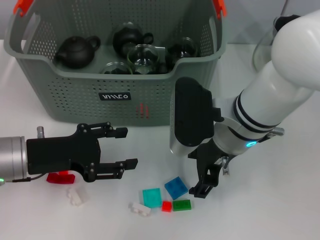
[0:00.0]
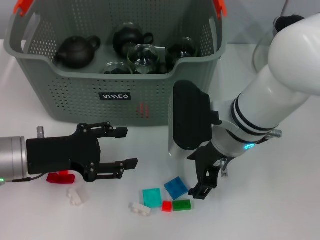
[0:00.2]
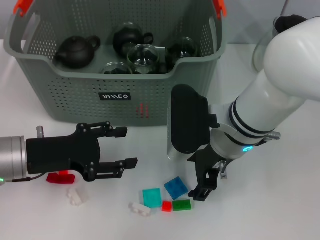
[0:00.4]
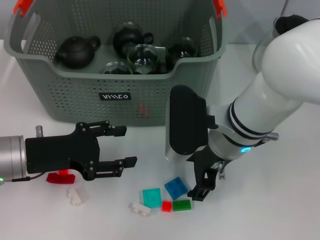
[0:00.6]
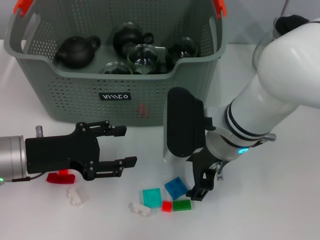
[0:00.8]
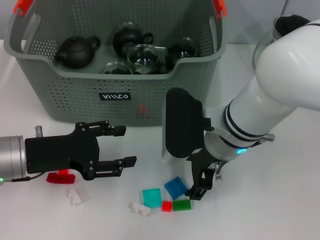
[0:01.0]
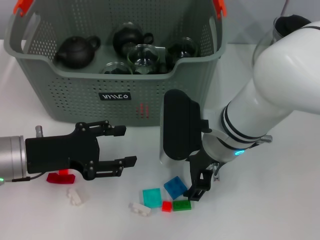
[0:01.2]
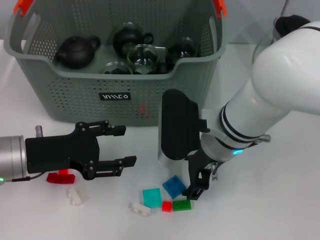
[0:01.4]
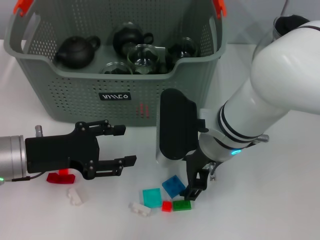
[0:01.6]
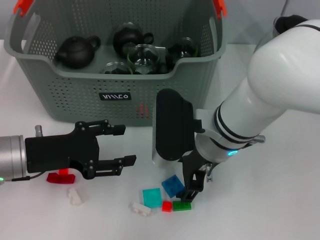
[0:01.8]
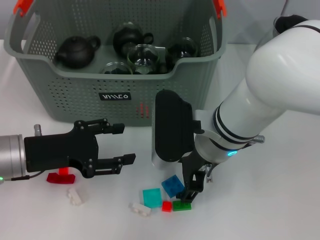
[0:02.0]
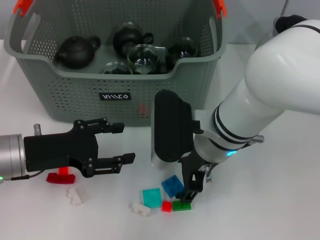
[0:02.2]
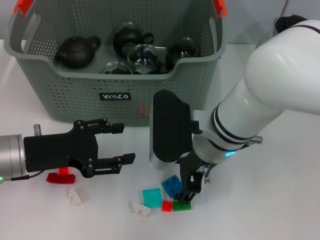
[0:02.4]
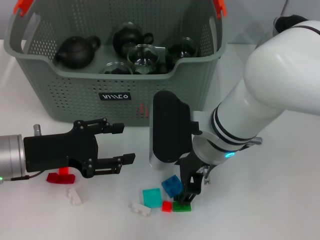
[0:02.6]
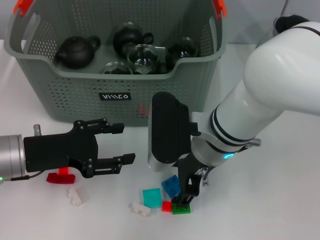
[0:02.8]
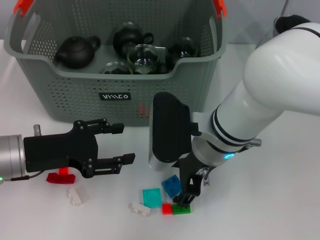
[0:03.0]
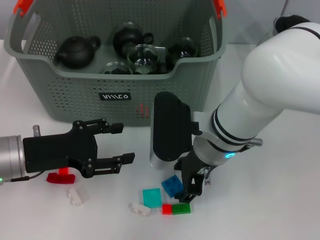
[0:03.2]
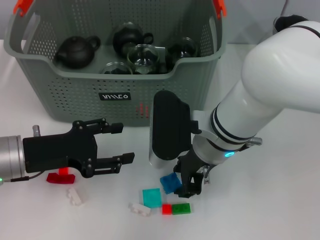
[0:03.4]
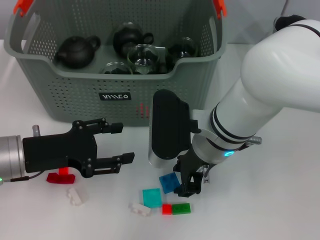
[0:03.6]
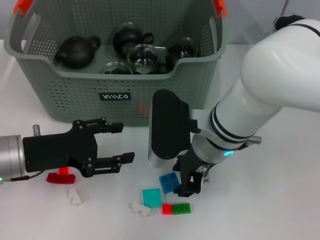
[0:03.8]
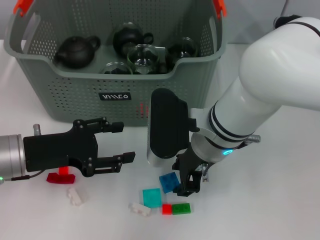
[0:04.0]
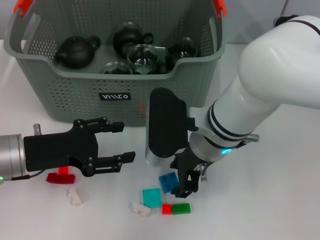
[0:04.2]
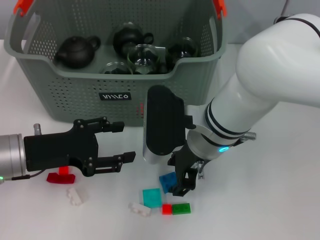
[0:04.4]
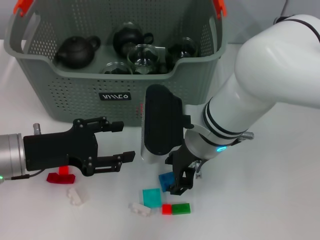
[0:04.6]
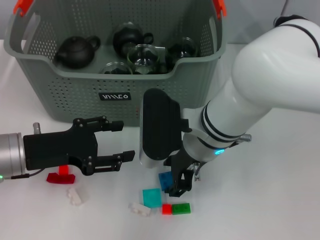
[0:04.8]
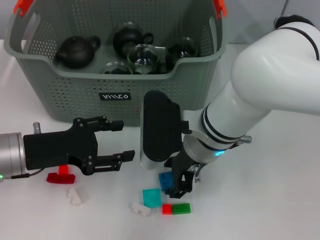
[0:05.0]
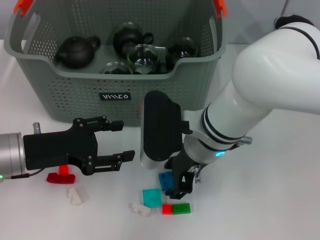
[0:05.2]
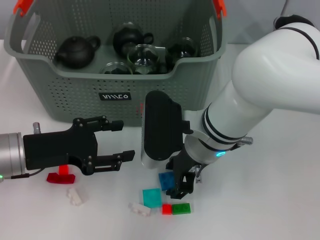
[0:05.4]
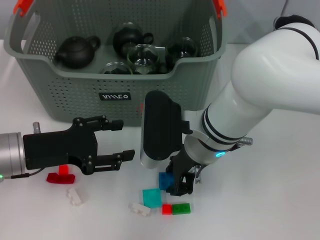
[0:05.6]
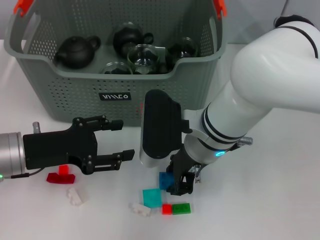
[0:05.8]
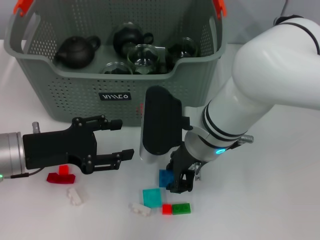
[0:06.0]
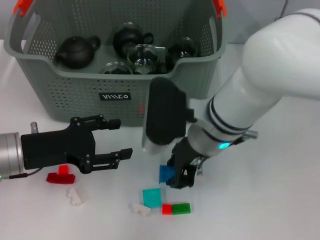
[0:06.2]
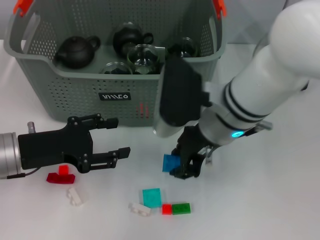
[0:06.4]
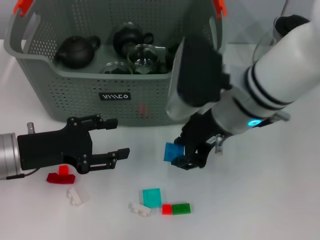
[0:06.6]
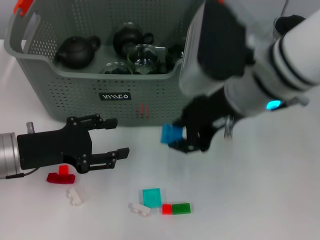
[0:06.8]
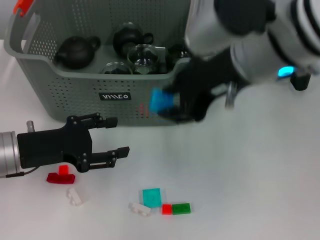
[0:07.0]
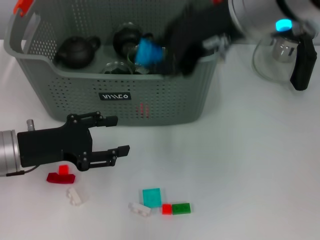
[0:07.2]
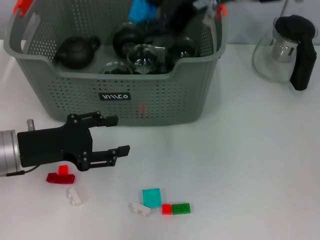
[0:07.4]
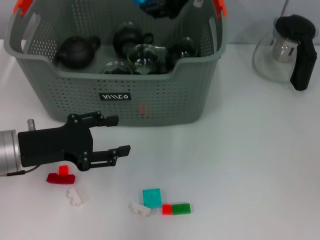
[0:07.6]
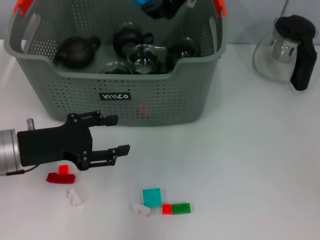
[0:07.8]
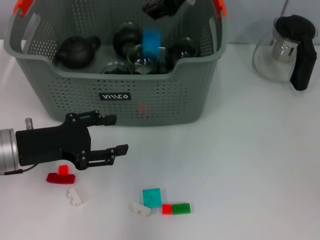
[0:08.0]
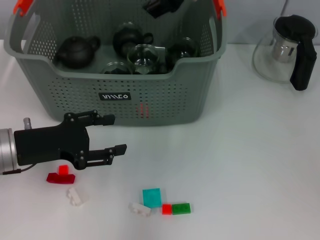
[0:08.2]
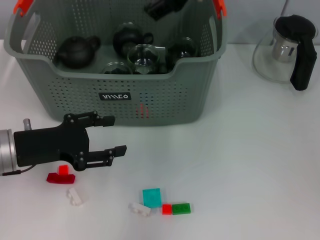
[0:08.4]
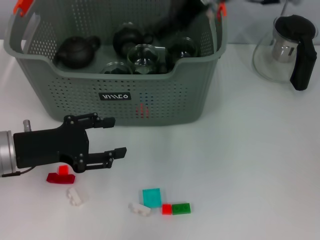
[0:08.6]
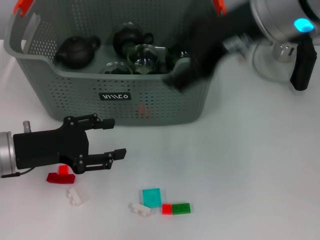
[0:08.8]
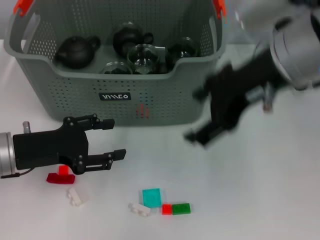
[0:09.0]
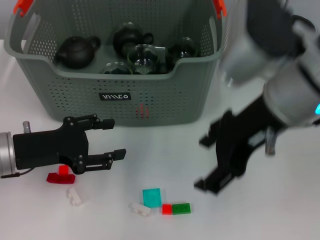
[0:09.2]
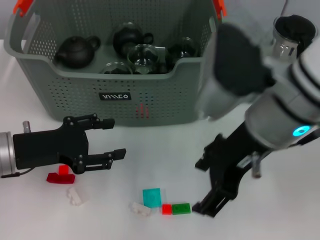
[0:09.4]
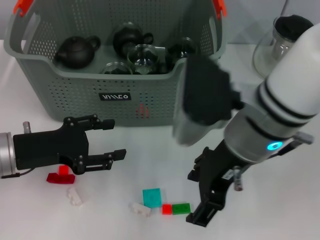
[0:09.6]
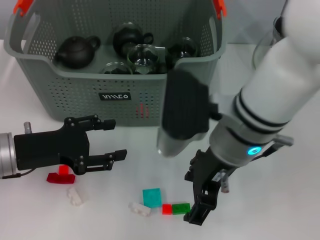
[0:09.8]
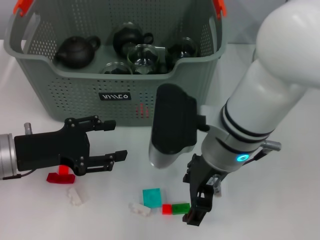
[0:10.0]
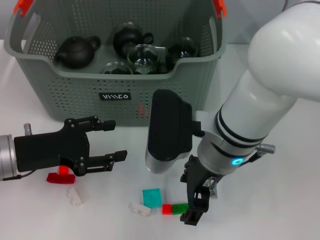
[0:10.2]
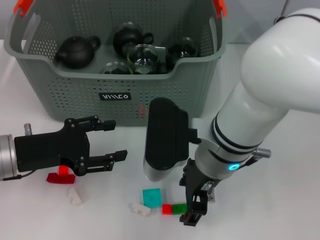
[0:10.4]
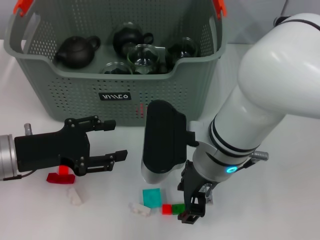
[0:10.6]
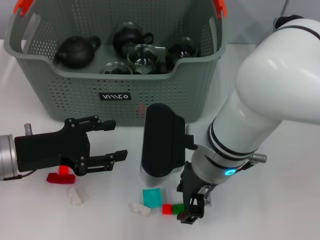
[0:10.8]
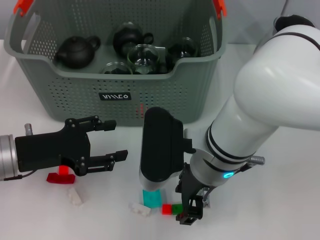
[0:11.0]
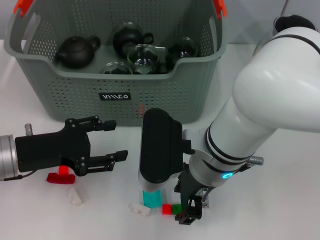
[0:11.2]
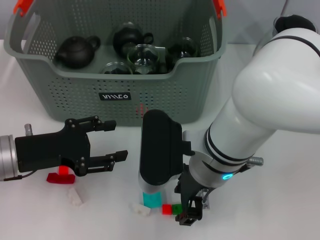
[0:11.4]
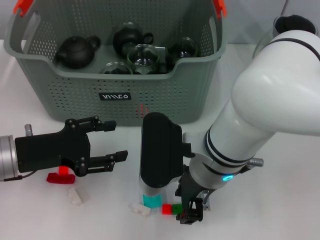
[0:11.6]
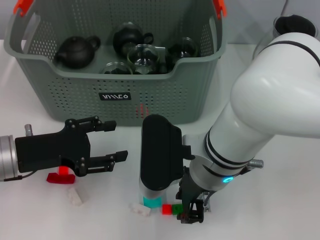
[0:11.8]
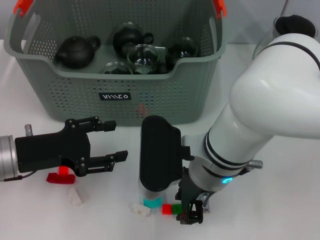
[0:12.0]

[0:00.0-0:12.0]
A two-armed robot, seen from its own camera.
Task of the whole recording: pick up the teacup on the table and place it into the storage bin, pick up the block on the table and place it into the storage bin.
Step, 0:00.0 to 0:05.8: Grasp the dark blue block with right gripper.
Step, 0:06.0 to 0:08.0: Place the dark blue block in the storage box with right gripper.
0:00.0 to 0:01.6: The grippers move only a little.
0:01.6 to 0:03.0: The two grippers keep their place.
0:03.0 to 0:06.0: Neither gripper changes place.
0:06.0 to 0:07.6: The right gripper heads upward, covering some 20 cm.
0:07.6 to 0:09.0: The right gripper goes about 10 cm backward and to the right, and opens.
0:09.0 to 0:10.4: The right gripper goes about 15 cm downward and to the left.
0:10.4 to 0:12.0: The right gripper closes its fingers.

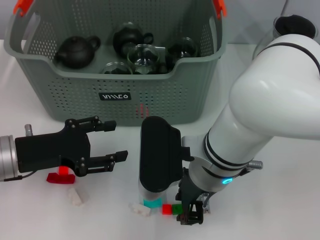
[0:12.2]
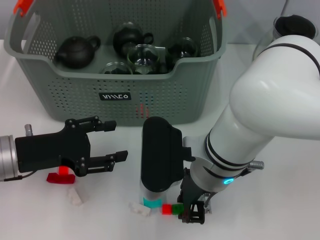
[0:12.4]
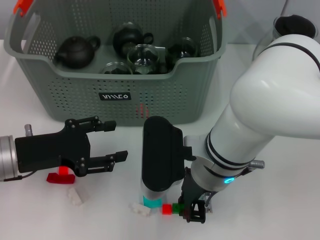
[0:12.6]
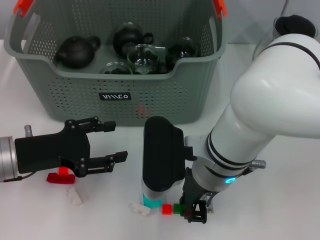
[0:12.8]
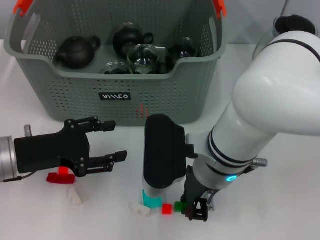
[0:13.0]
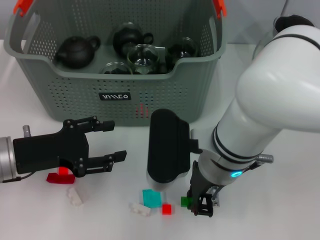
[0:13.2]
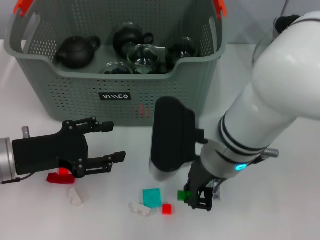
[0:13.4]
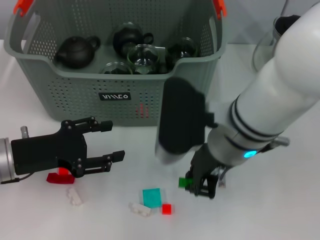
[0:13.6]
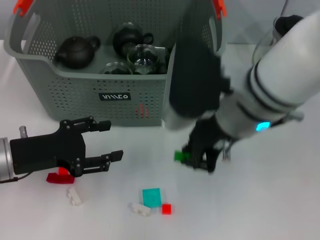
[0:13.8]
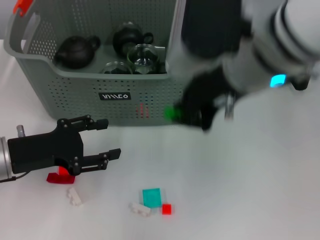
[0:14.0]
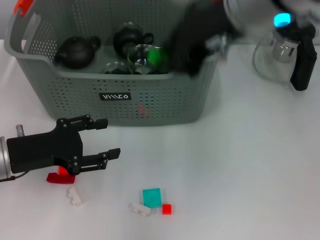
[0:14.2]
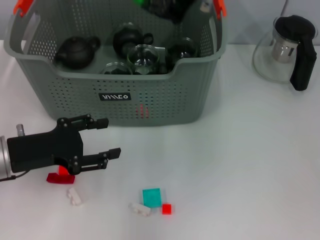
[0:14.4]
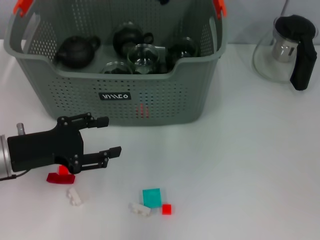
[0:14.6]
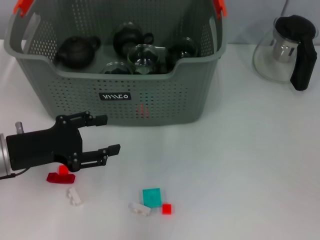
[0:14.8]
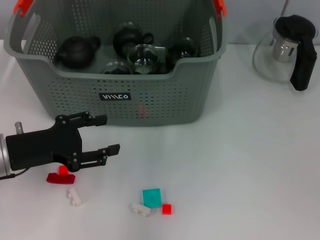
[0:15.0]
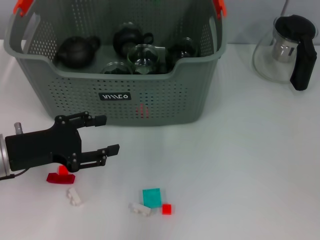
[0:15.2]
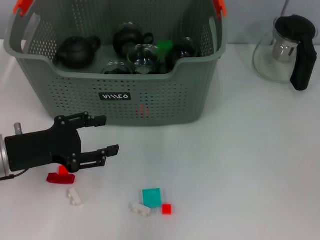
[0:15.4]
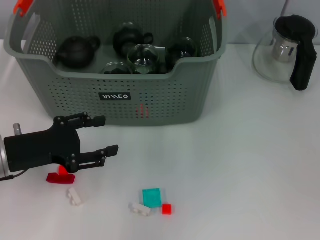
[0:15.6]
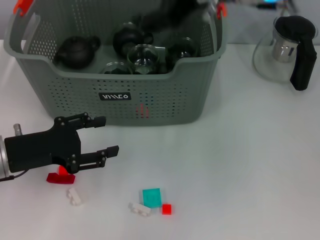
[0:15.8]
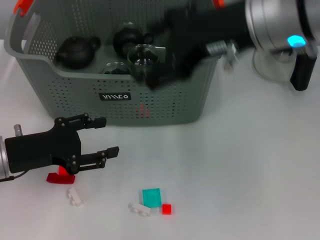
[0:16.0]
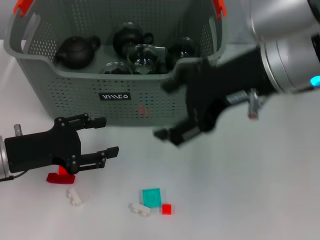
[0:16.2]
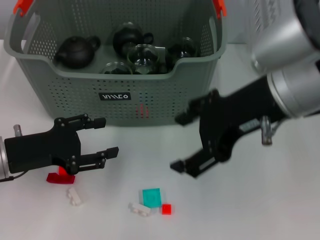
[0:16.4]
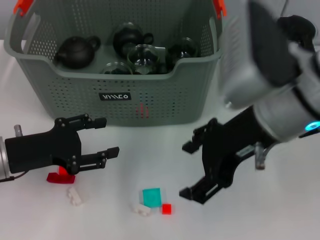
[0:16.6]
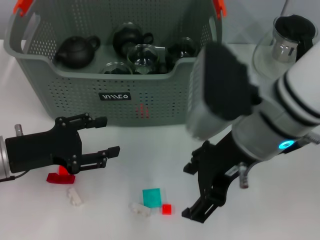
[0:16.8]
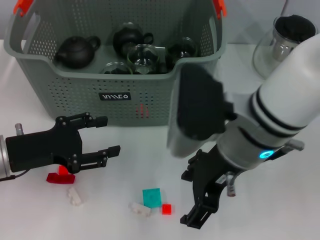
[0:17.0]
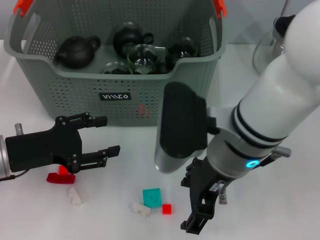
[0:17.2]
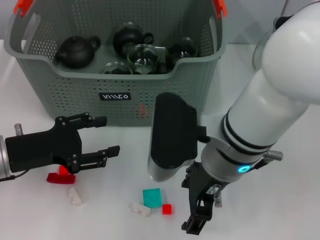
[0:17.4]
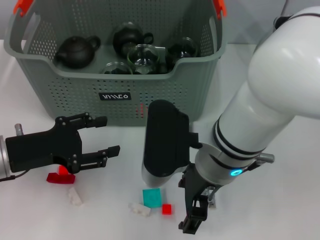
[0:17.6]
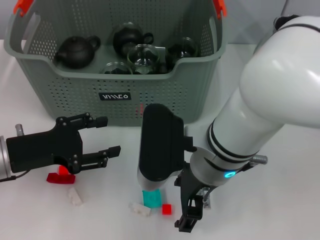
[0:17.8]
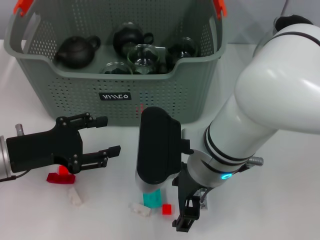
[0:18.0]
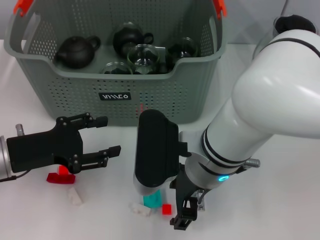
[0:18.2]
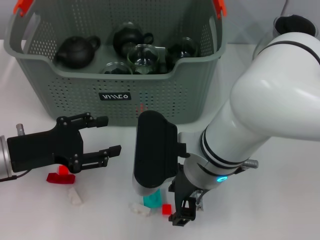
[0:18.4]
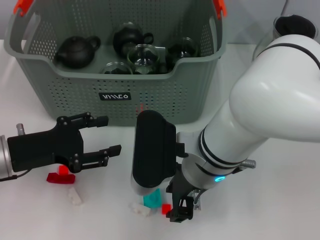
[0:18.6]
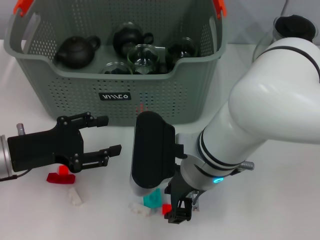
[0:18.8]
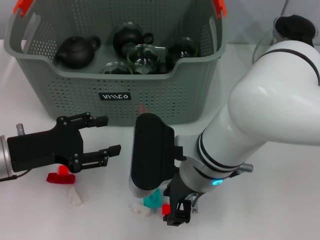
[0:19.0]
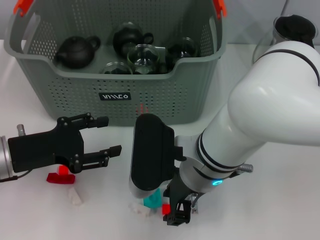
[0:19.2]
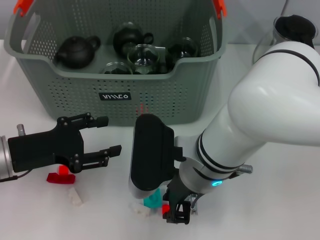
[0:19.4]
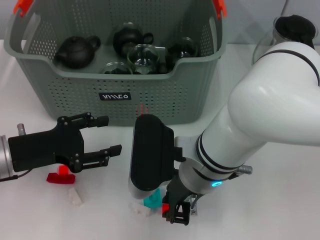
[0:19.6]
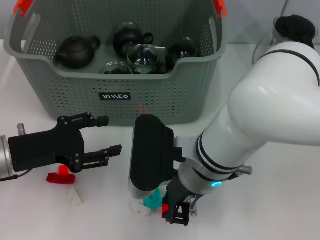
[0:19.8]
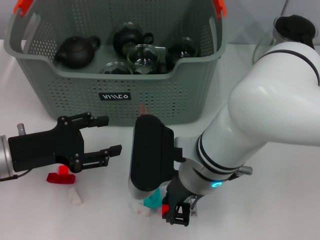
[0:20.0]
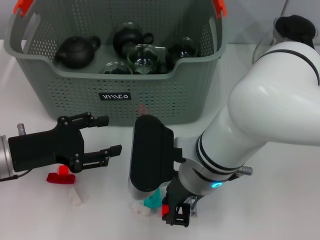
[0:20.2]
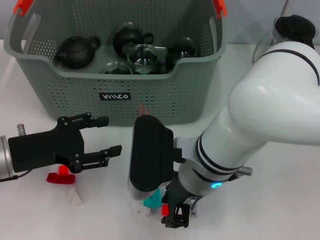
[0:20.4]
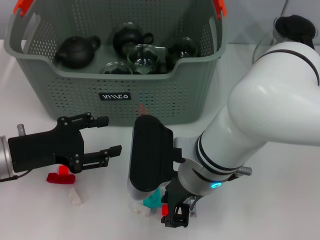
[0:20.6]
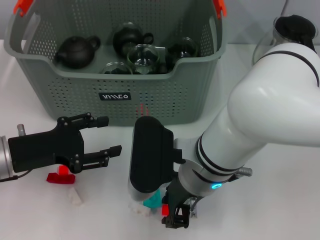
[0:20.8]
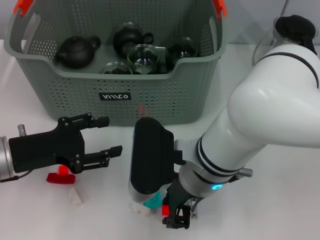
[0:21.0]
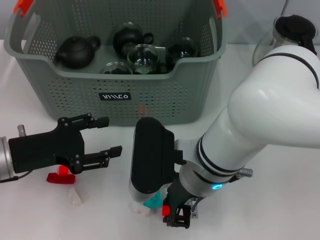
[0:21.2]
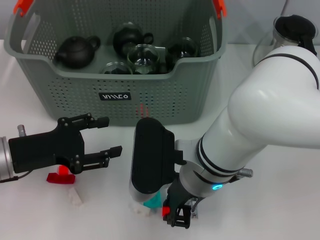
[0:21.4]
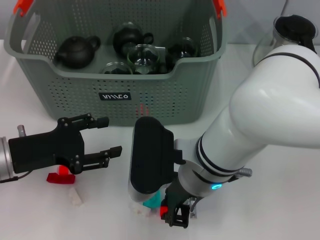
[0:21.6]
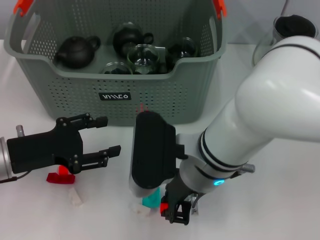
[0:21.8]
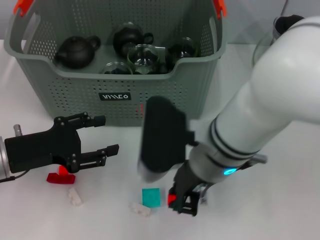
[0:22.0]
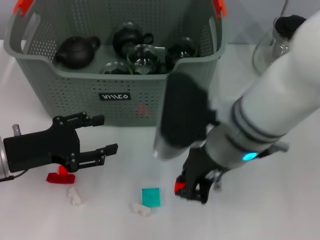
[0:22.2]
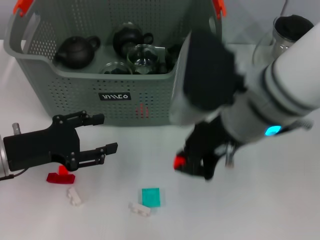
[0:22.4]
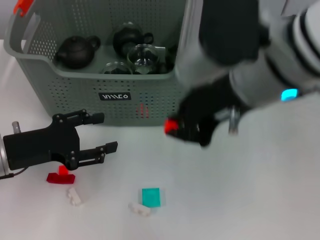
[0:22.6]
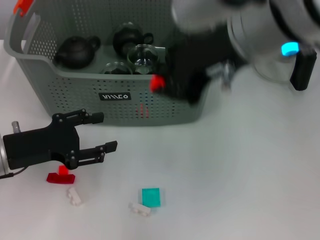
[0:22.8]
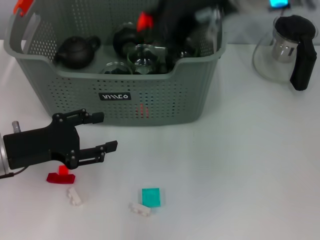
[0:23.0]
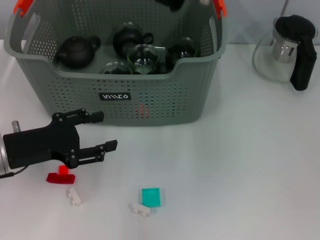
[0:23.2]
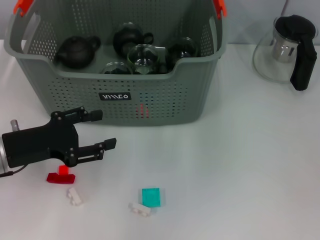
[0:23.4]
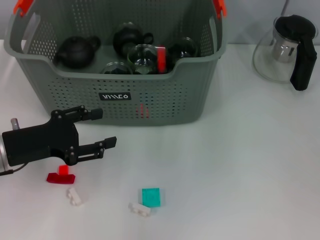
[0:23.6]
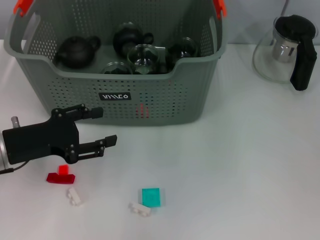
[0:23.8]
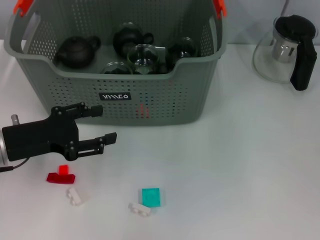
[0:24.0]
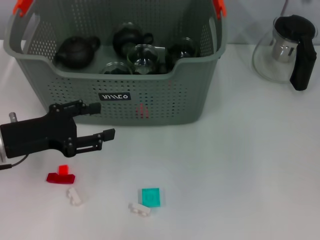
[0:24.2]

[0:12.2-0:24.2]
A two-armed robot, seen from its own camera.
Task of the whole recording: pick up the teacup on the table and place it into the storage bin, pick up the block on the table and place it into the storage bin.
Step, 0:13.0 to 0:15.2: Place the green block in the storage box with right gripper.
Step, 0:15.4 to 0:21.4: Grasp the red block with right gripper.
Step, 0:21.6 to 0:23.6: Place the red block in the storage box with right gripper.
0:12.2 to 0:13.8: The right gripper travels upward by approximately 10 cm.
0:13.8 to 0:15.2: The right gripper heads forward and upward, covering approximately 15 cm.
0:15.2 to 0:16.6: The right gripper shifts about 15 cm backward and to the right, and opens its fingers.
0:16.6 to 0:18.2: The right gripper goes about 15 cm downward and to the left.
0:18.2 to 0:19.8: The right gripper closes its fingers.
0:19.8 to 0:21.2: Both grippers stay about where they are.
0:21.2 to 0:22.6: The right gripper goes some 15 cm upward.
0:22.6 to 0:24.2: The right gripper heads forward, covering about 10 cm, and opens its fingers.
